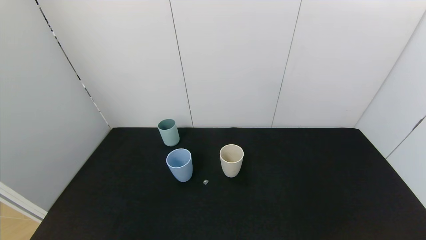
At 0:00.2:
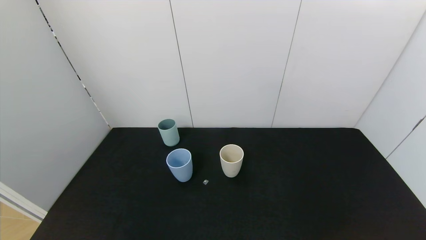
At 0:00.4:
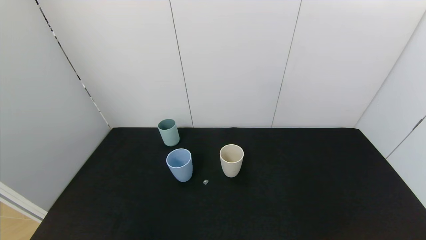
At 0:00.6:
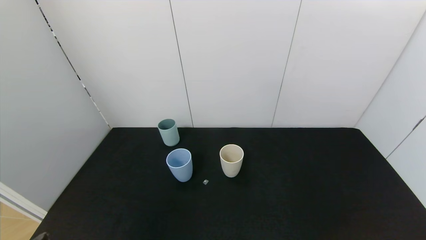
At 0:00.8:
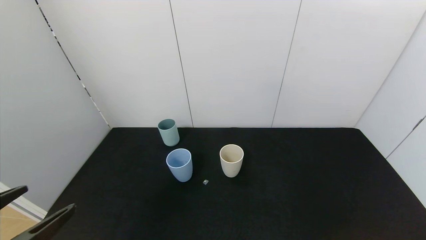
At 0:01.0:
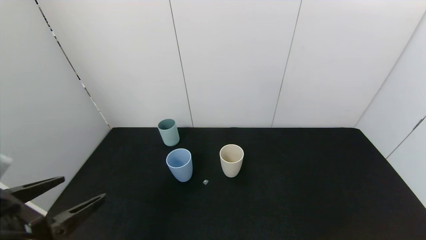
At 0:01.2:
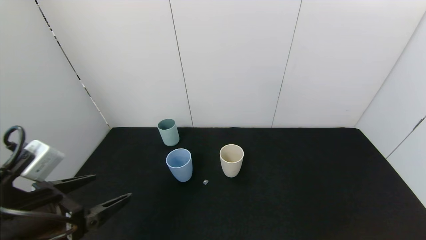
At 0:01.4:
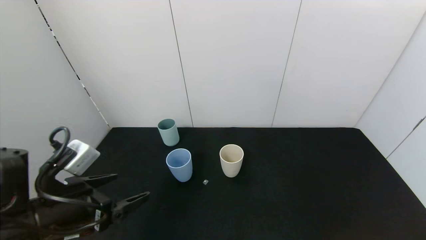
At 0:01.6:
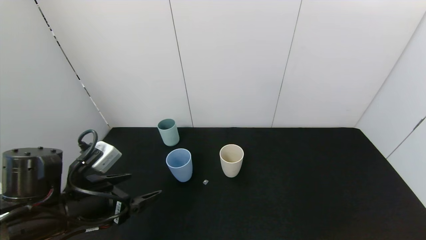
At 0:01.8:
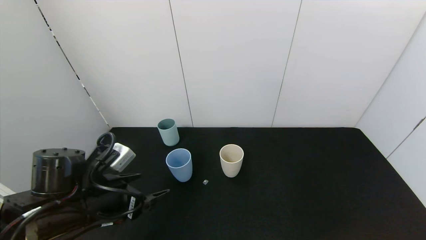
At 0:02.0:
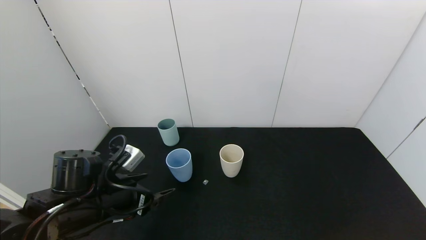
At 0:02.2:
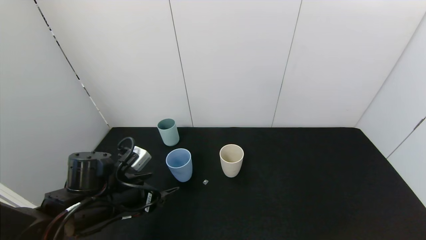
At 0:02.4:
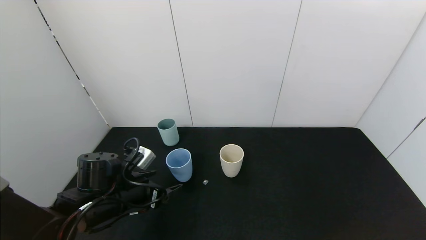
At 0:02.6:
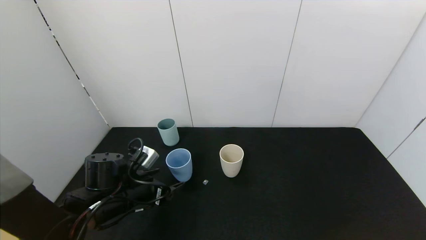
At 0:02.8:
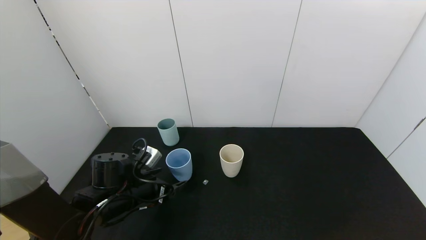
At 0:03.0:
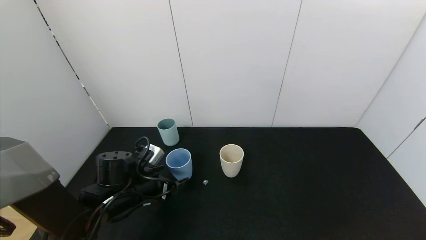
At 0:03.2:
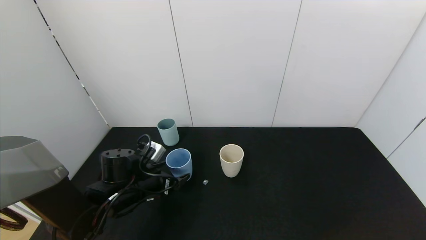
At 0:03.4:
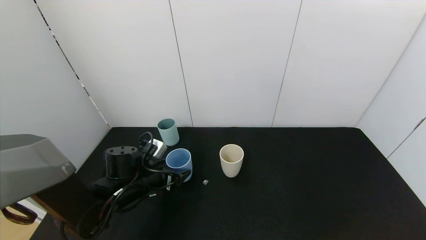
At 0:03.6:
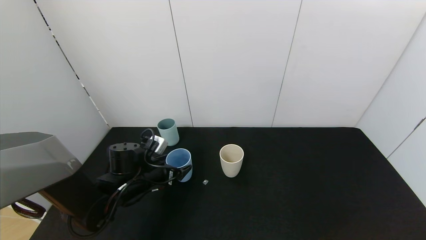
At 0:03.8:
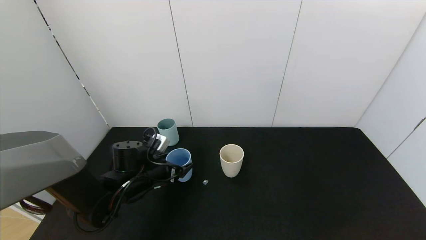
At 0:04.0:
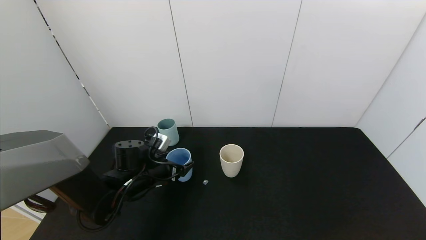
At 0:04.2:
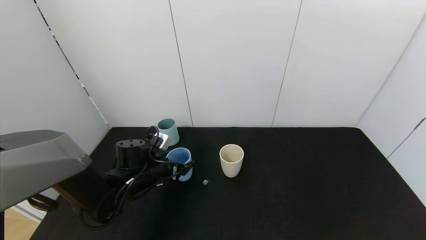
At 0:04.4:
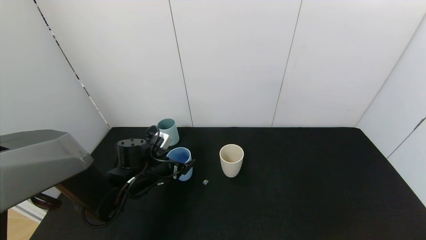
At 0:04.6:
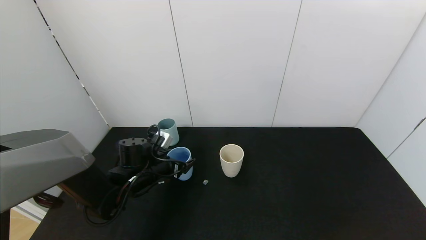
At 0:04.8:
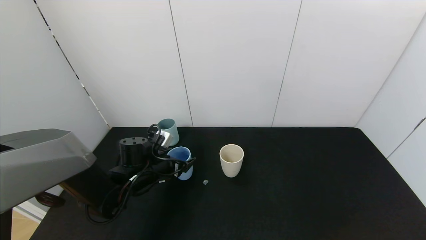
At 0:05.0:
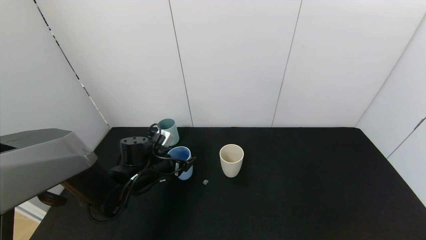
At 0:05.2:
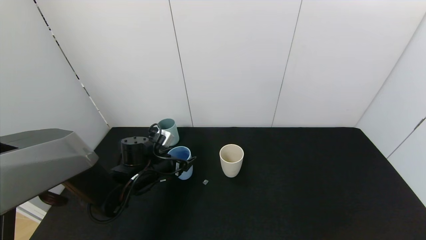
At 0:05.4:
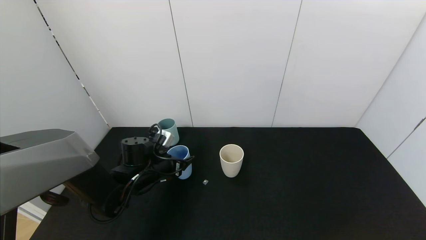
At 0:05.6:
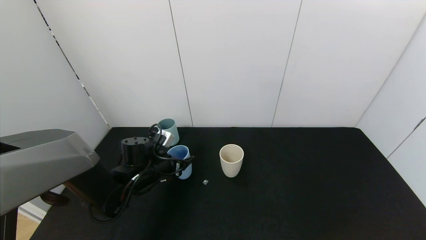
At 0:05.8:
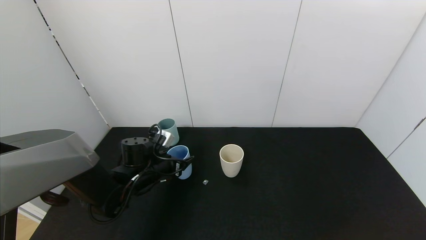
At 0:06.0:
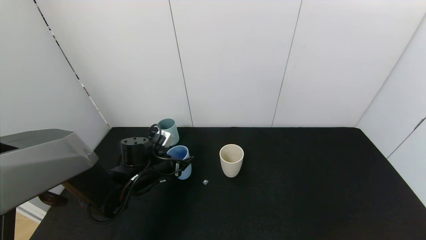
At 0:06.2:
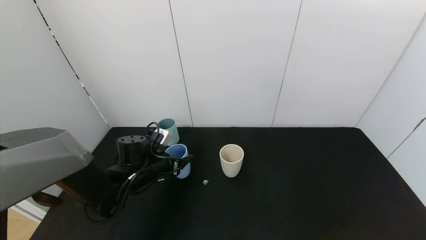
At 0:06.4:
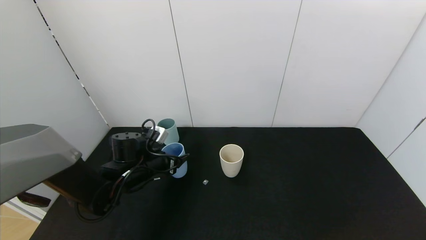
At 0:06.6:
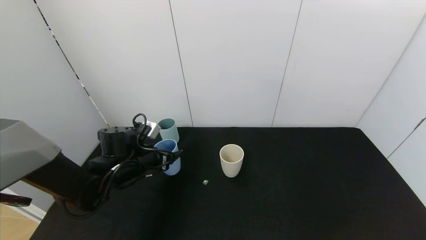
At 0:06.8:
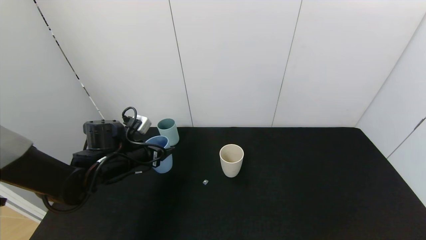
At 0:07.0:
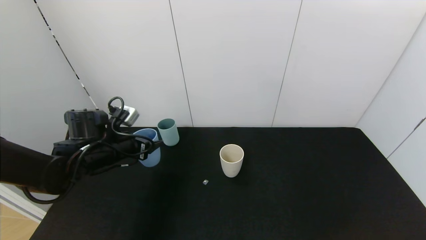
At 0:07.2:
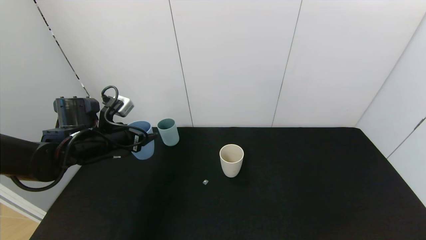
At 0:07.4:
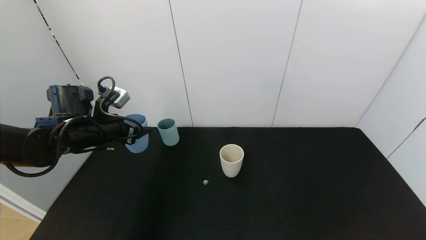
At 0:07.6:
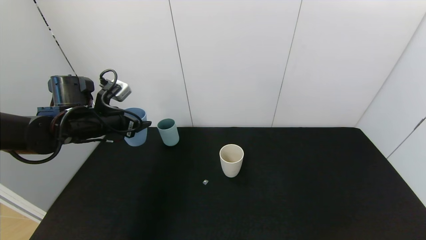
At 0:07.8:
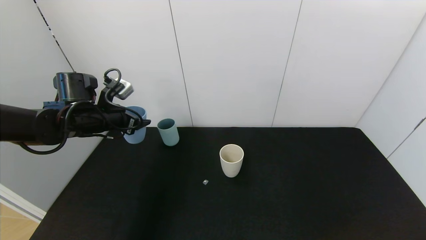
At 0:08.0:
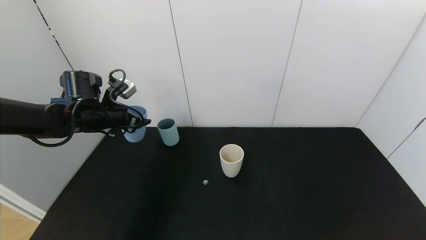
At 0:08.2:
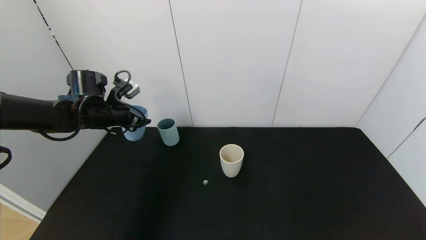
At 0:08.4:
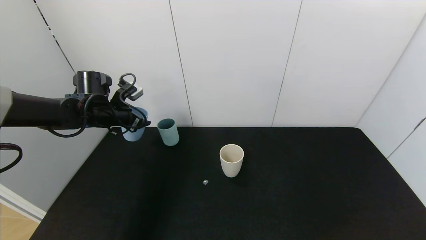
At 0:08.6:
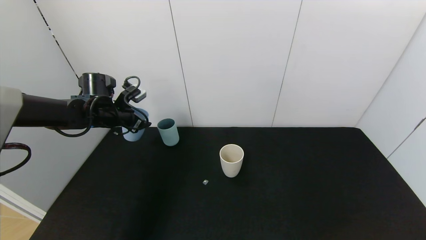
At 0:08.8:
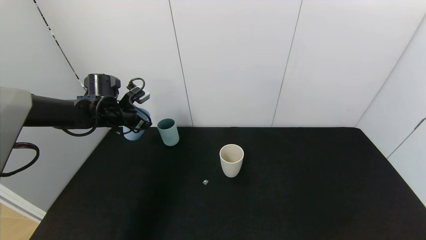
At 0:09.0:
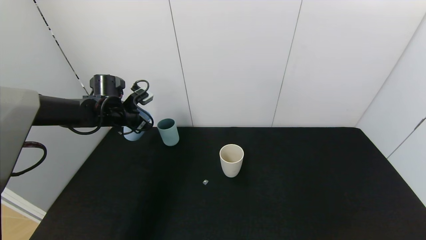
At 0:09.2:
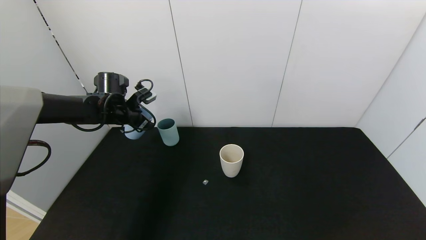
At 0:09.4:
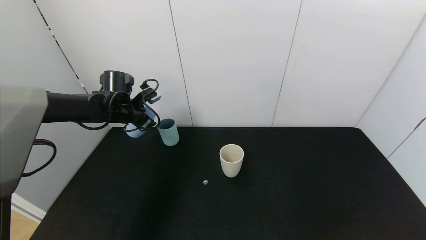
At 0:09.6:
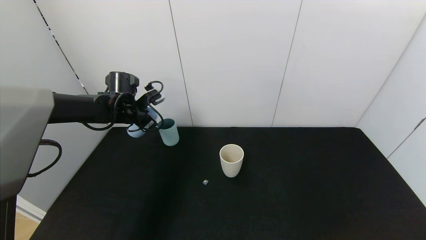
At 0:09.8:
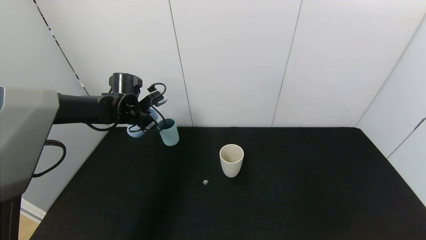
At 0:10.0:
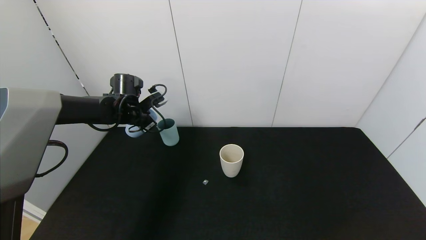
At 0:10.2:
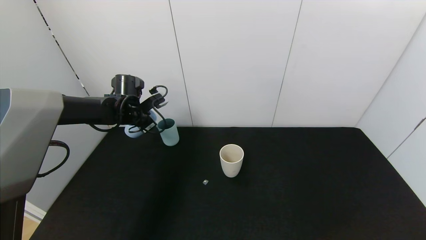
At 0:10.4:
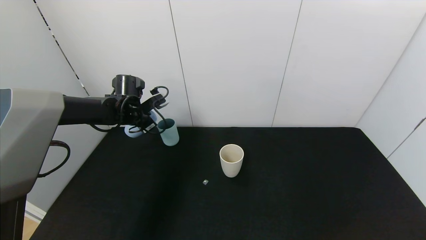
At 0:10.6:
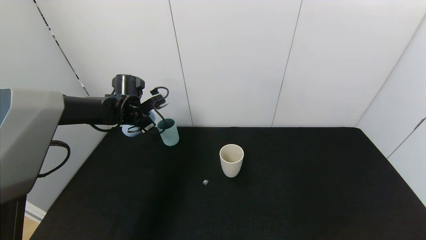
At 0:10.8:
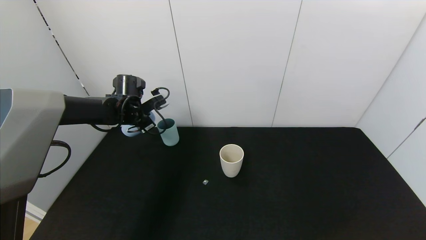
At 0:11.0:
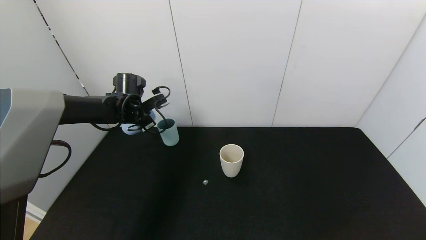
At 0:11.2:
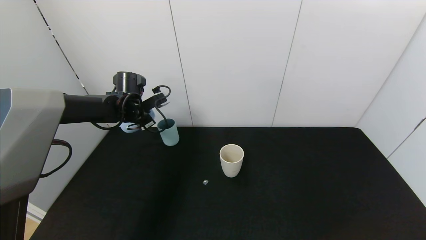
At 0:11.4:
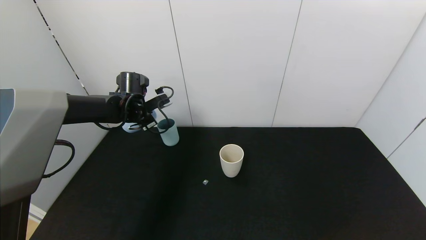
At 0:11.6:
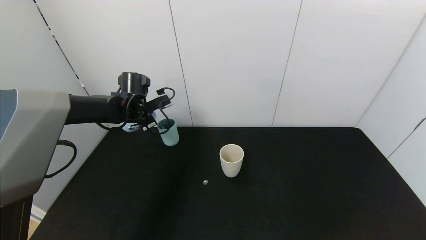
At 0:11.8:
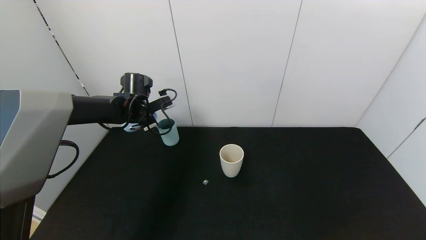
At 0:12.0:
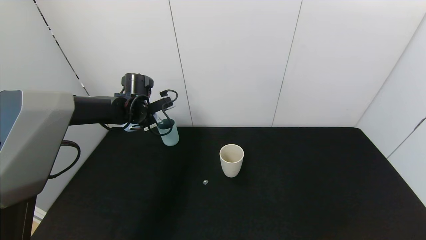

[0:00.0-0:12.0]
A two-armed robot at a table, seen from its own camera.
Task of the whole recording: use the gripper to pour the water into the other two cups on black table.
Step, 0:00.0 to 0:05.8: Grasp the blue cup with the left gripper.
0:00.0 to 0:01.6: The left gripper travels forward by about 25 cm.
0:01.6 to 0:03.0: The left gripper shifts roughly 10 cm forward and downward.
0:03.0 to 0:04.4: The left gripper is displaced forward by approximately 5 cm.
0:04.4 to 0:06.0: The left gripper closes.
0:06.0 to 0:07.6: The left gripper goes approximately 15 cm upward and to the left.
0:07.6 to 0:09.0: The left gripper goes about 10 cm forward.
0:09.0 to 0:10.4: The grippers move only a little.
0:10.4 to 0:12.0: There are only small adjustments of the grippers.

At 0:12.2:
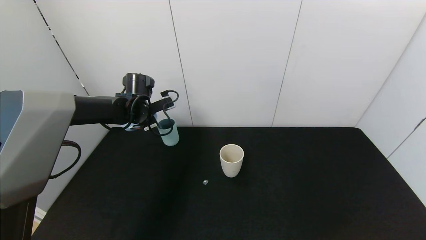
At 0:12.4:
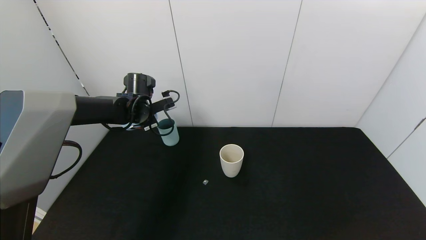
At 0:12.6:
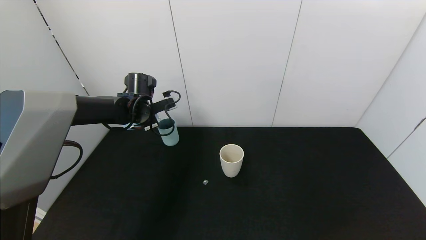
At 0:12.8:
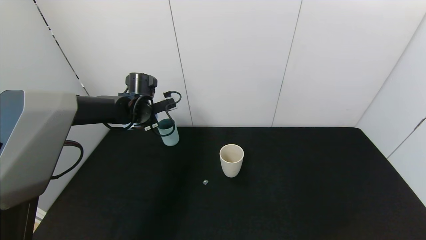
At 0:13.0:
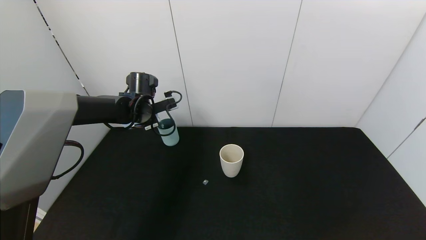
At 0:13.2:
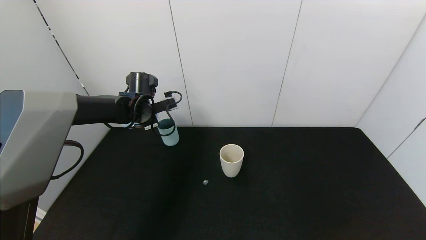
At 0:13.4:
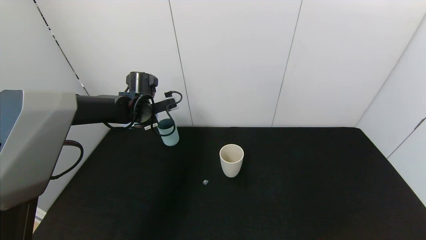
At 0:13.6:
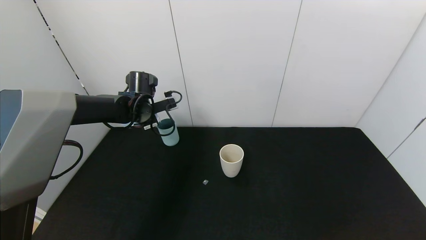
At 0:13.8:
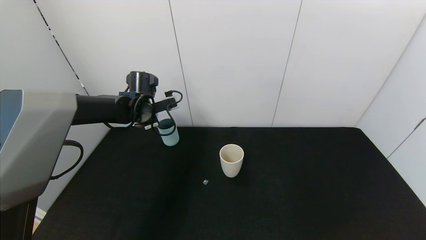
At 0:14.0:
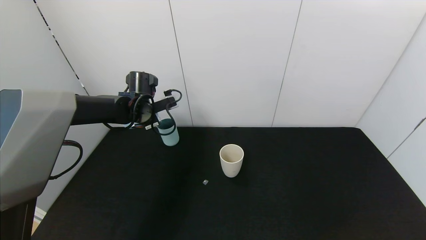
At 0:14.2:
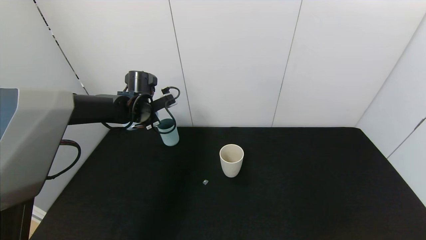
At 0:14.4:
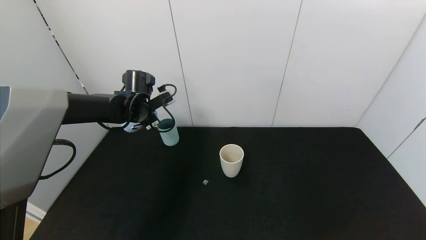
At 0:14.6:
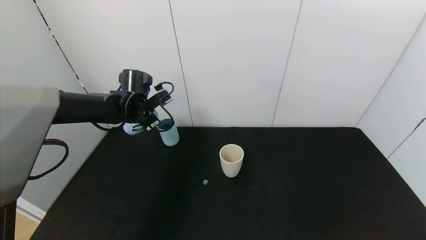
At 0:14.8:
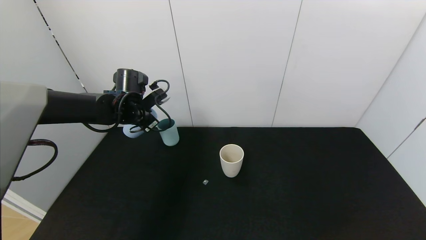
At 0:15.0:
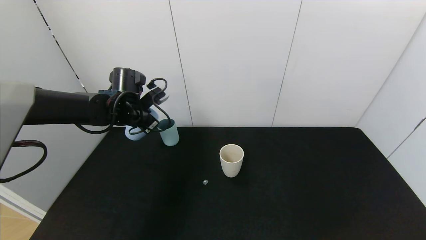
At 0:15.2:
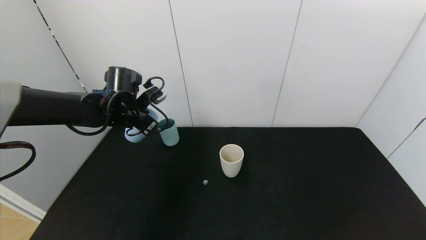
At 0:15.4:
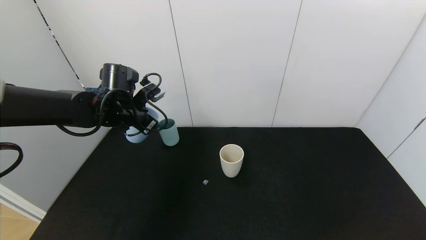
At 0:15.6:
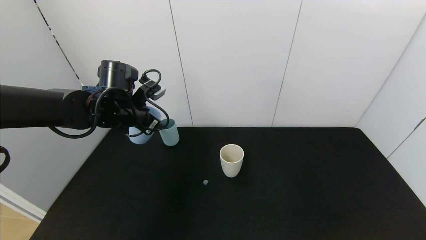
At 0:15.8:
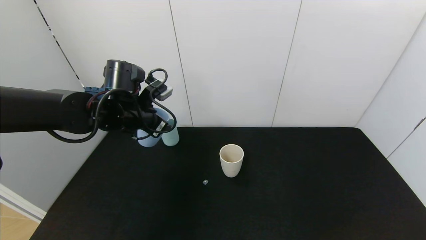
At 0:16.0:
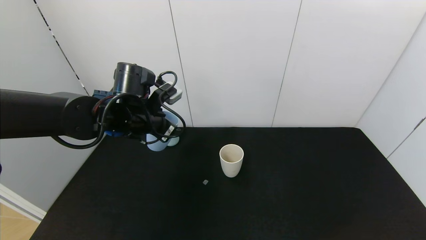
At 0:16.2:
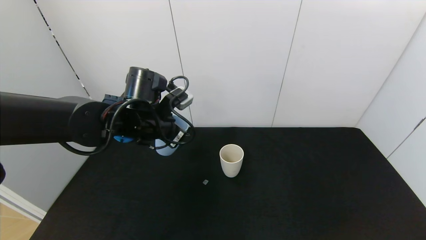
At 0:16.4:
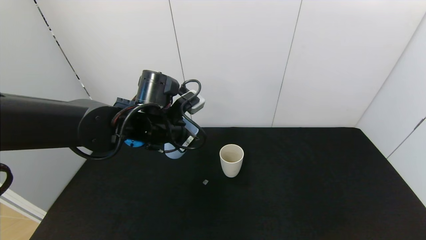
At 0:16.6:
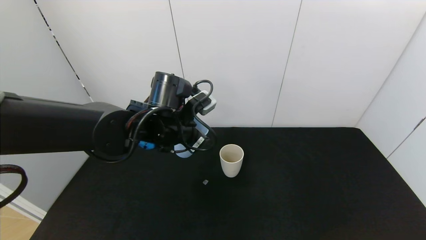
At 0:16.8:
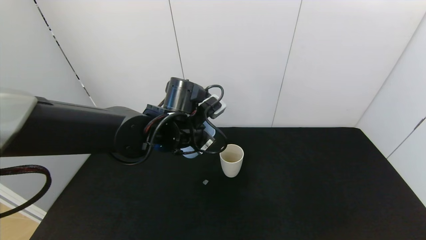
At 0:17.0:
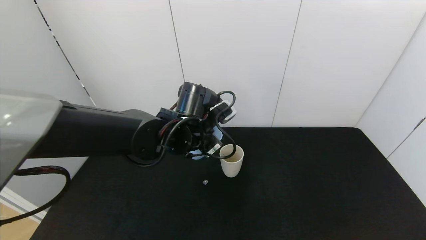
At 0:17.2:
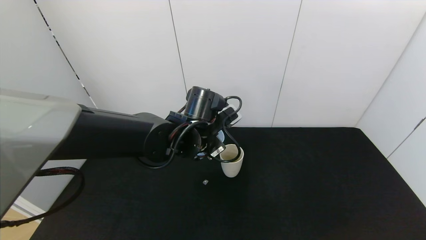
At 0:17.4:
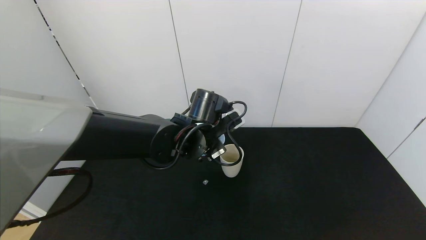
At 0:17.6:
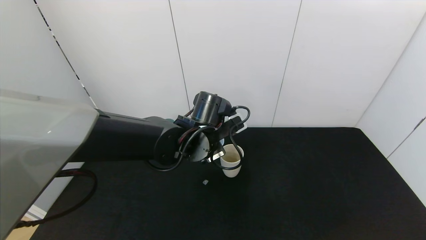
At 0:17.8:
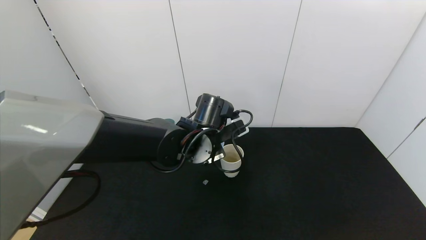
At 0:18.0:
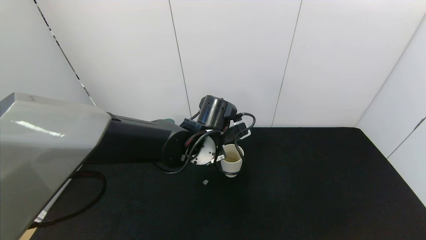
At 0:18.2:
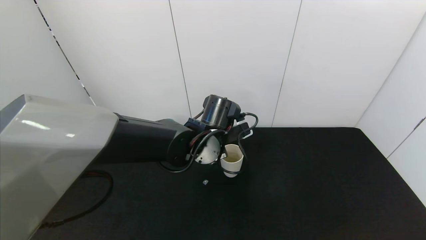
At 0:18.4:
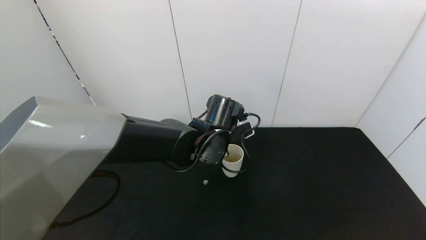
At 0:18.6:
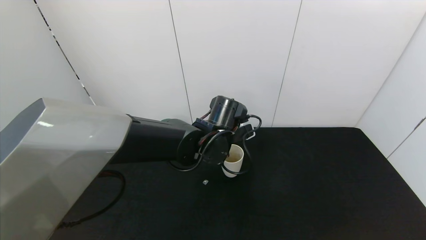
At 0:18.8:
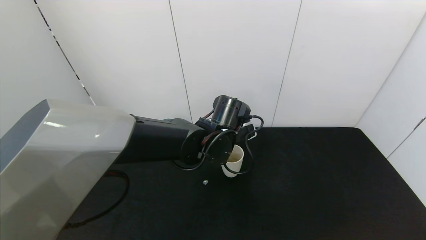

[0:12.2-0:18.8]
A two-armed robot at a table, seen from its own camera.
Task of the whole recording: use the gripper to pour the water into the other two cups on black table.
Step, 0:12.2 to 0:14.8: Pour water from blue cup to green cup with the left gripper.
0:12.2 to 0:13.8: There are only small adjustments of the grippers.
0:13.8 to 0:15.4: The left gripper travels backward by about 5 cm.
0:15.4 to 0:17.2: The left gripper travels to the right by approximately 15 cm.
